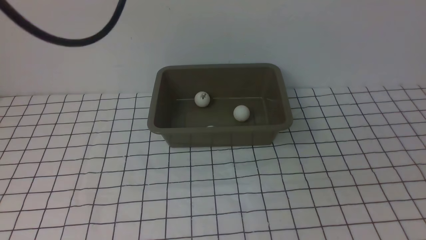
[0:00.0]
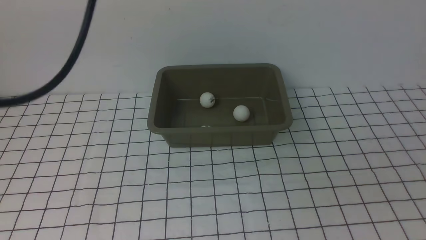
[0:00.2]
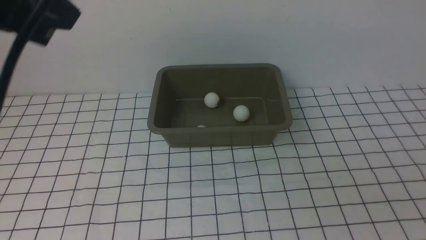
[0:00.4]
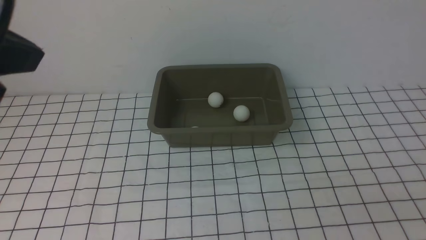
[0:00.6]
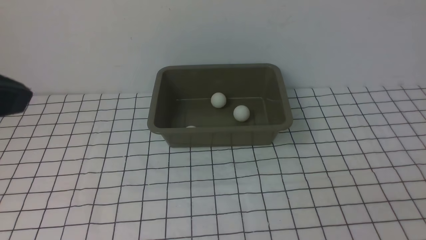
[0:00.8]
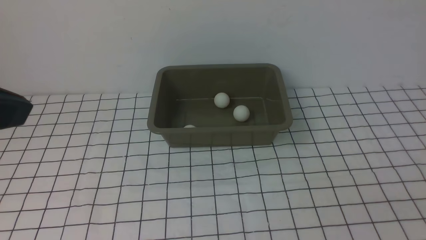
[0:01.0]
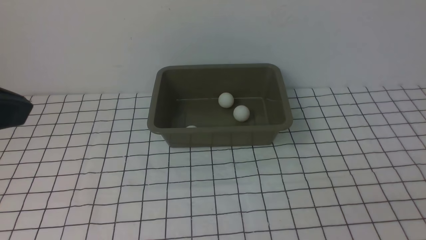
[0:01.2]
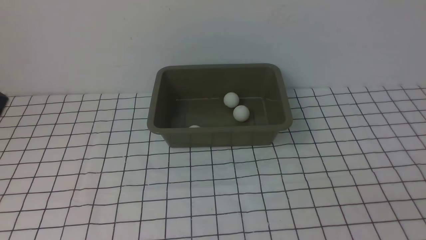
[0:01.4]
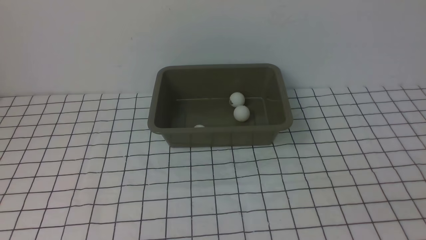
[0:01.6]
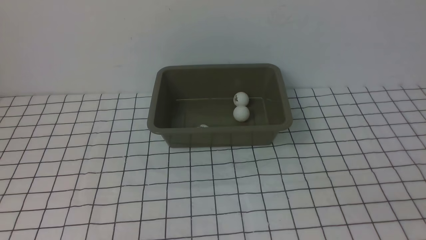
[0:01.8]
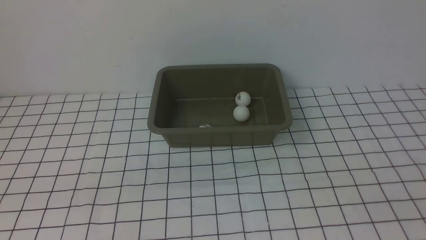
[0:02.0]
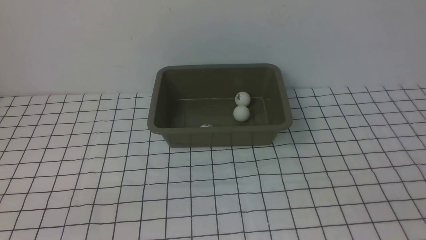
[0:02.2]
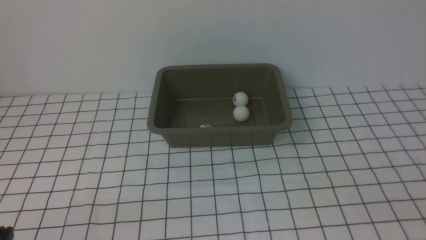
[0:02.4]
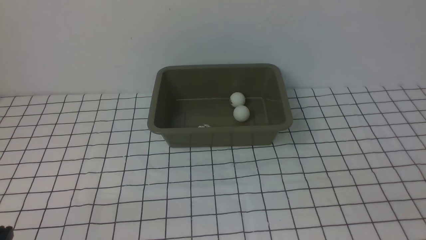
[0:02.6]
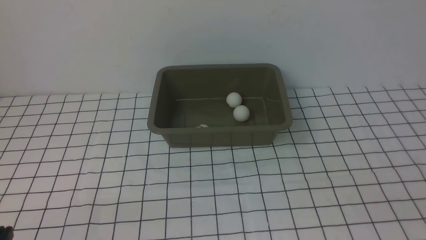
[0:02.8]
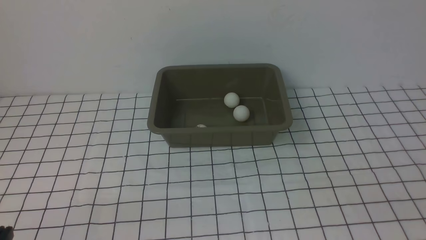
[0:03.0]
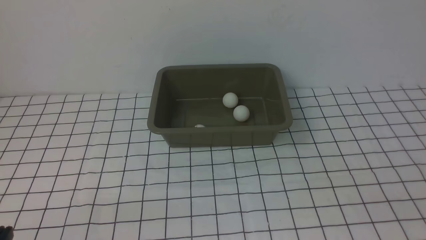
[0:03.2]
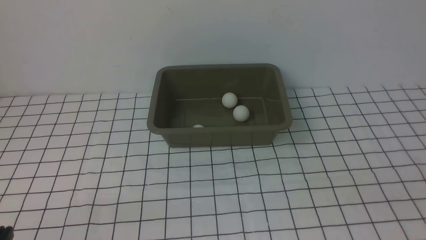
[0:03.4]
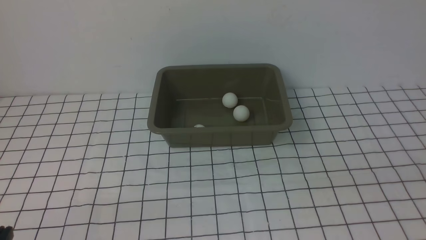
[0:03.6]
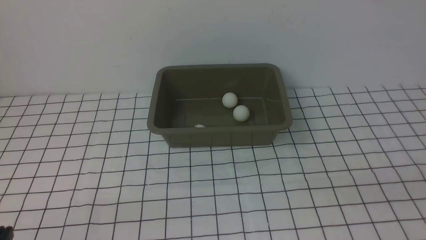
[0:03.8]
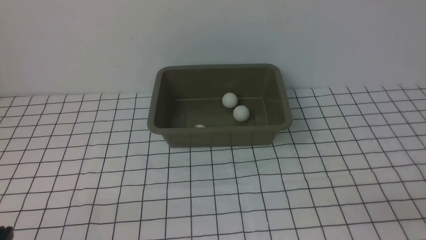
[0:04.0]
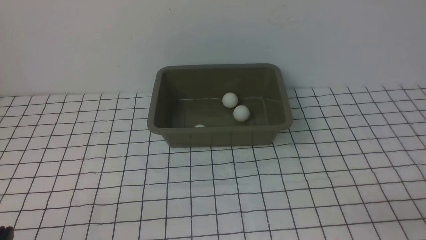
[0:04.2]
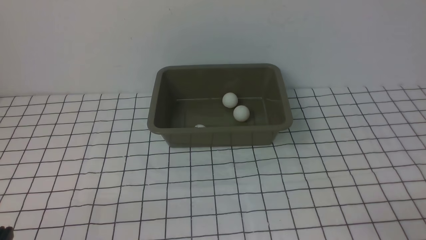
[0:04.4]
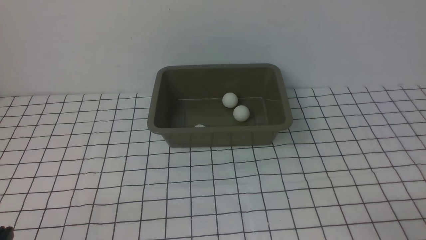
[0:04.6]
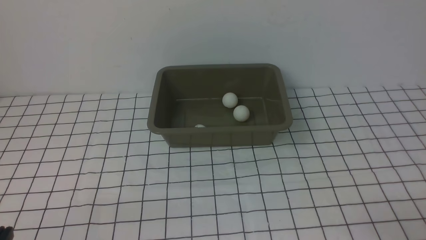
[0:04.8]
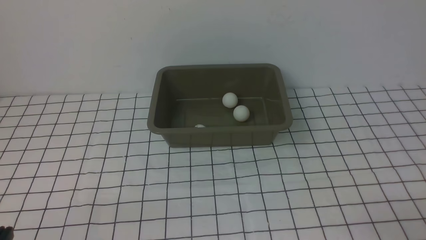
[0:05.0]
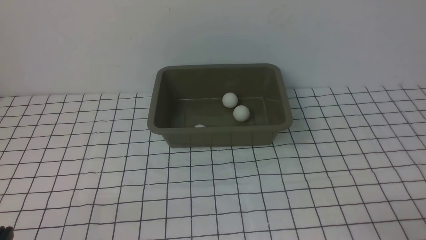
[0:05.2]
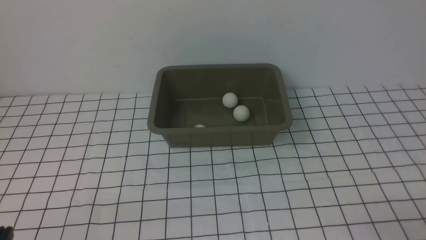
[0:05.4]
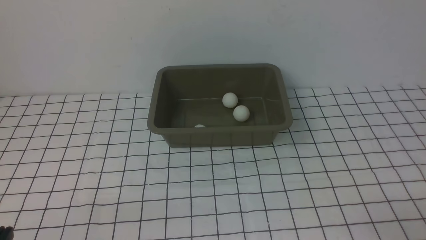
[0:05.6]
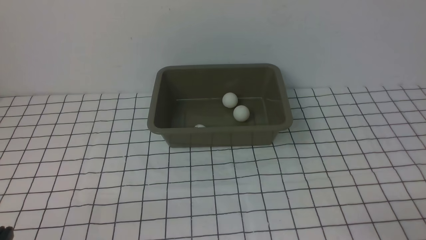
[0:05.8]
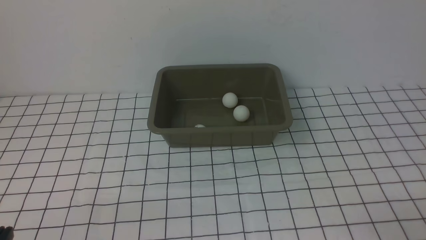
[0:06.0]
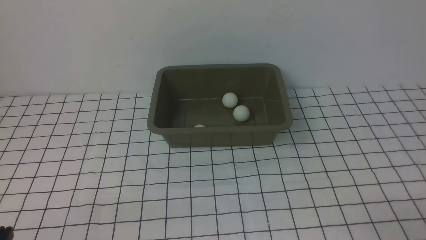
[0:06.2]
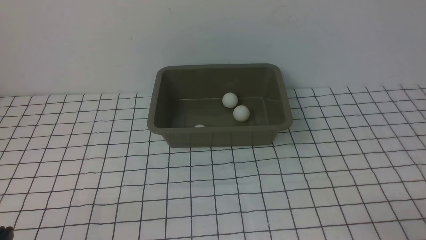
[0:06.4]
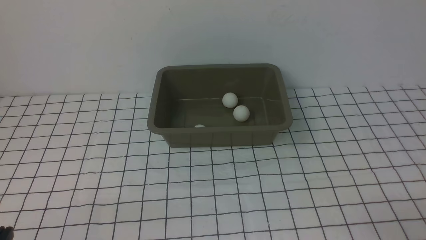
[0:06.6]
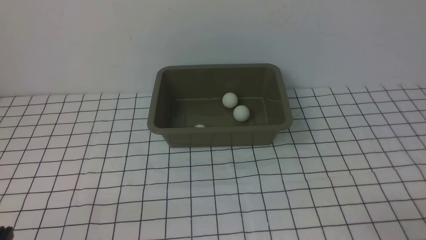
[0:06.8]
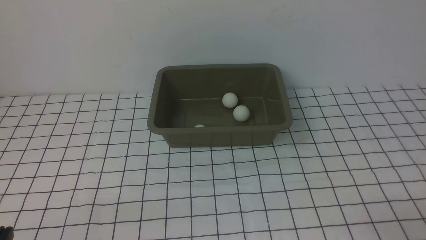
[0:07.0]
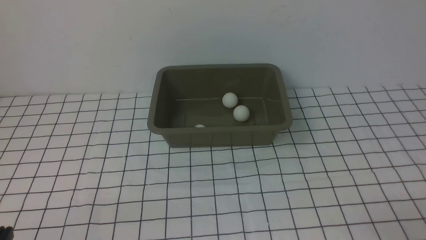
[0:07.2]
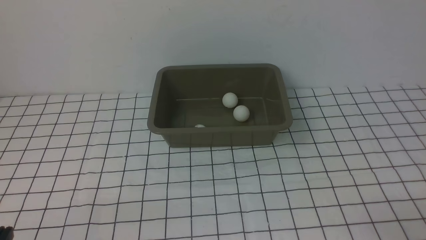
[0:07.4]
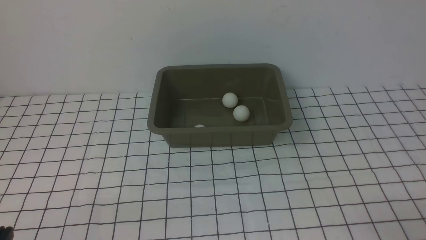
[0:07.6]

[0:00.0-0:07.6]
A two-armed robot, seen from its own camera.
0:00.0 to 0:01.6: The left gripper is displaced backward, downward and to the left by approximately 25 cm.
0:04.6 to 0:07.6: The two grippers keep their place.

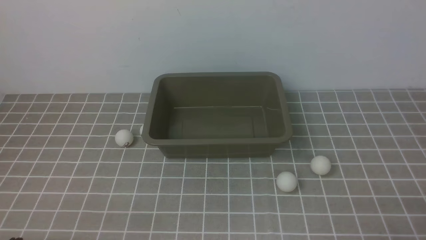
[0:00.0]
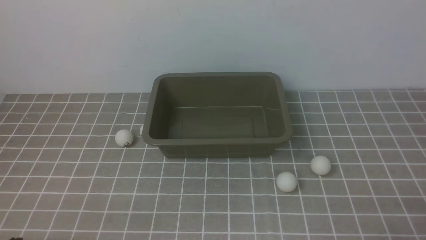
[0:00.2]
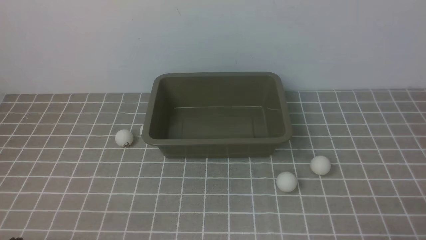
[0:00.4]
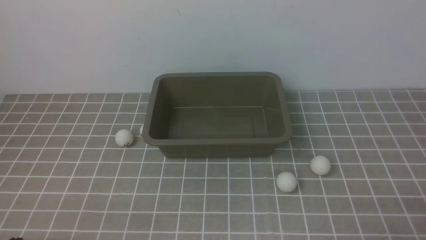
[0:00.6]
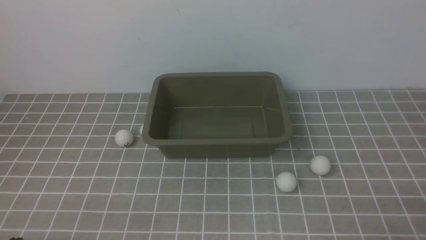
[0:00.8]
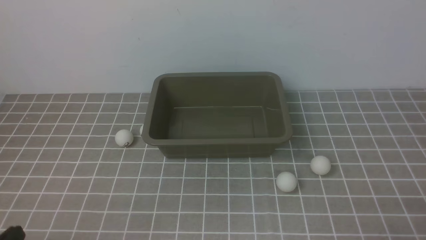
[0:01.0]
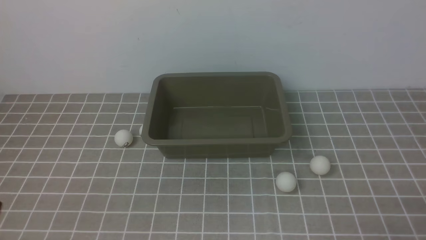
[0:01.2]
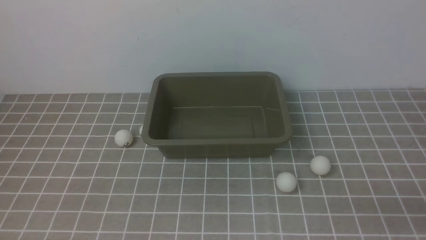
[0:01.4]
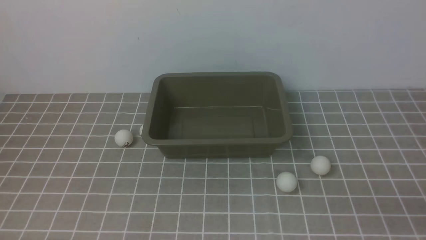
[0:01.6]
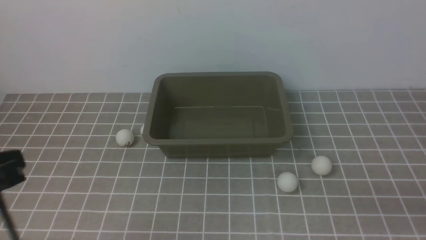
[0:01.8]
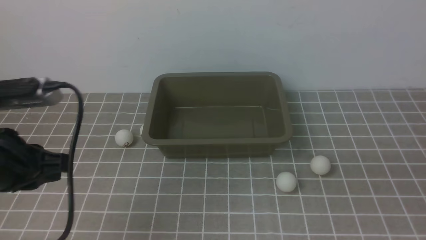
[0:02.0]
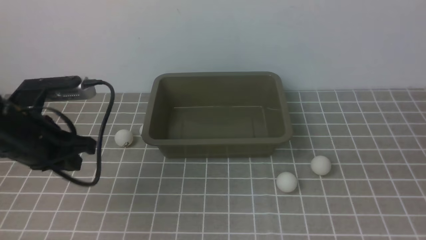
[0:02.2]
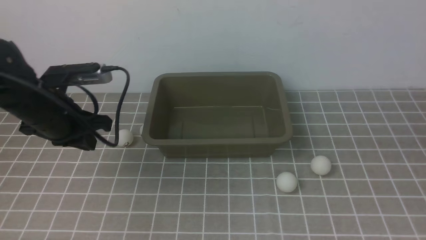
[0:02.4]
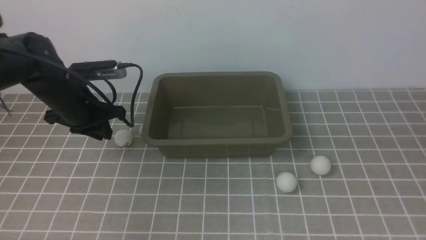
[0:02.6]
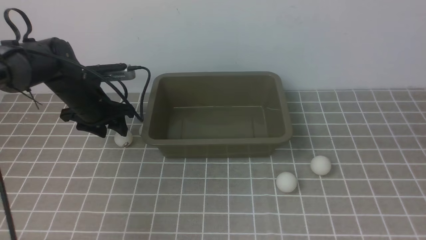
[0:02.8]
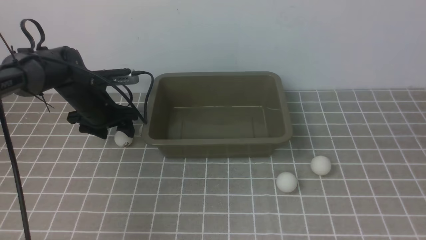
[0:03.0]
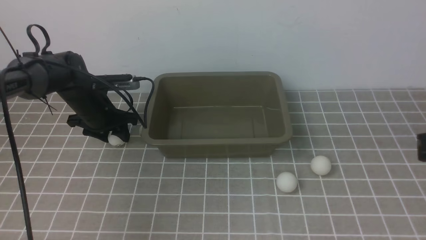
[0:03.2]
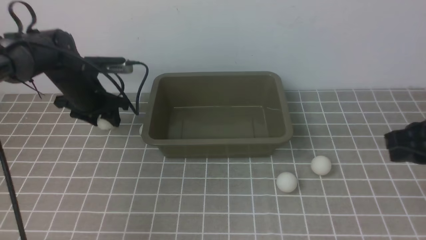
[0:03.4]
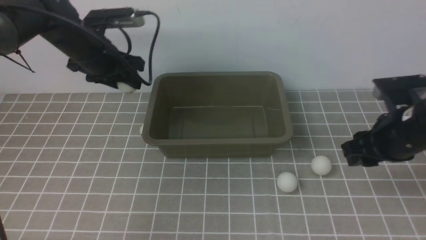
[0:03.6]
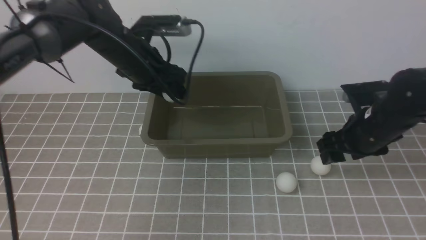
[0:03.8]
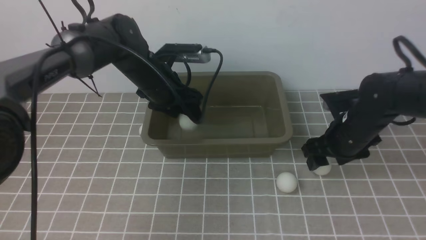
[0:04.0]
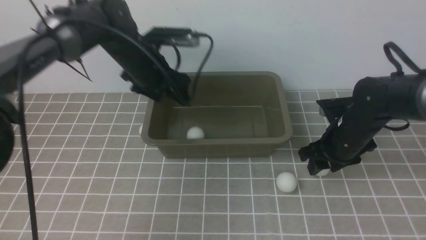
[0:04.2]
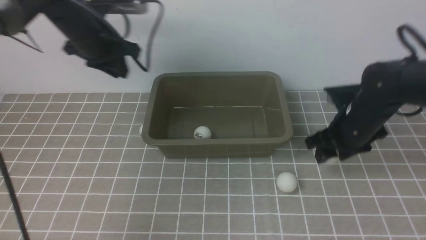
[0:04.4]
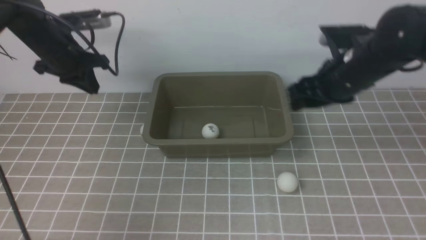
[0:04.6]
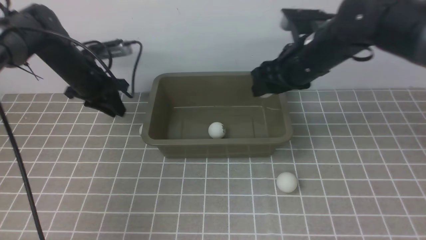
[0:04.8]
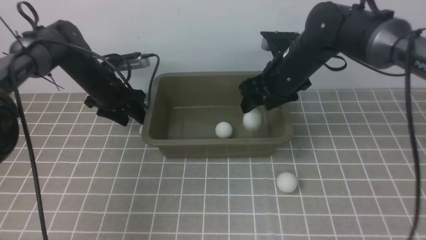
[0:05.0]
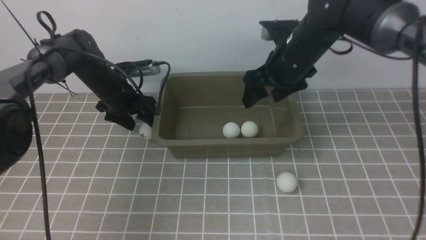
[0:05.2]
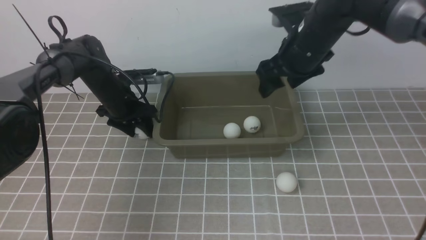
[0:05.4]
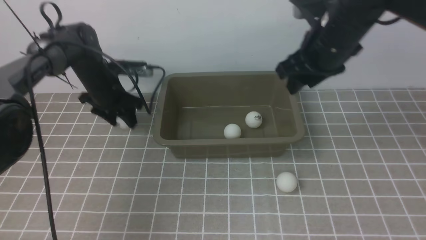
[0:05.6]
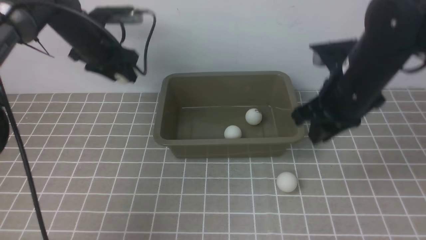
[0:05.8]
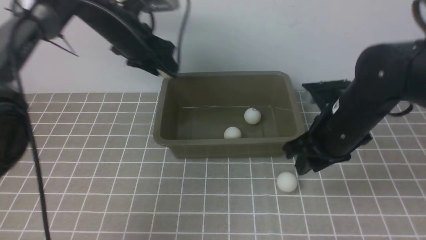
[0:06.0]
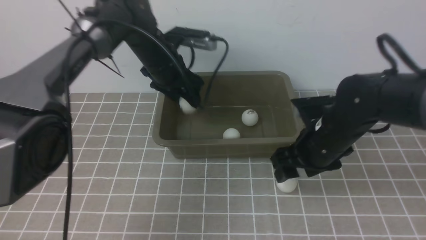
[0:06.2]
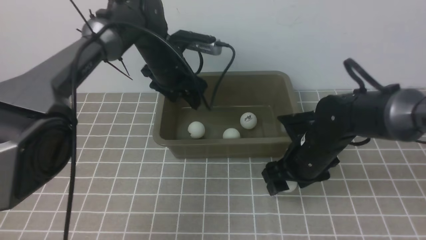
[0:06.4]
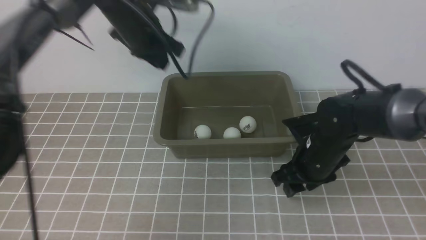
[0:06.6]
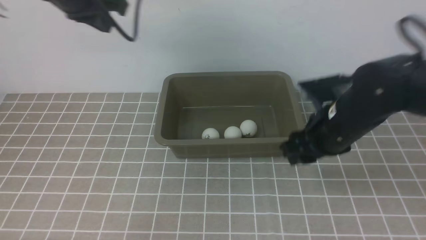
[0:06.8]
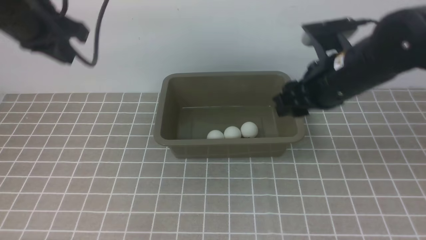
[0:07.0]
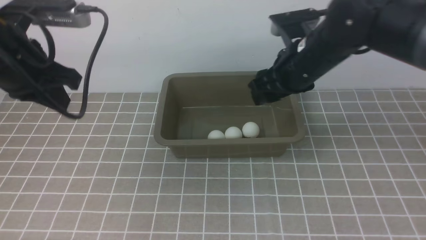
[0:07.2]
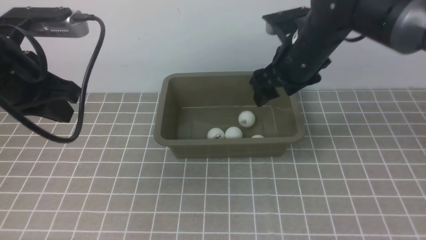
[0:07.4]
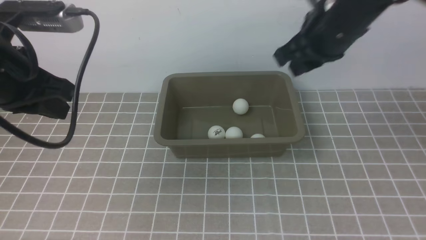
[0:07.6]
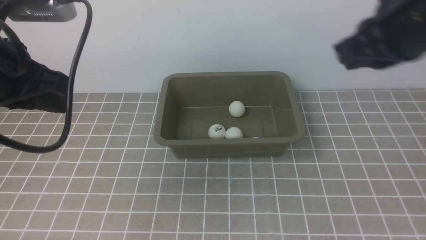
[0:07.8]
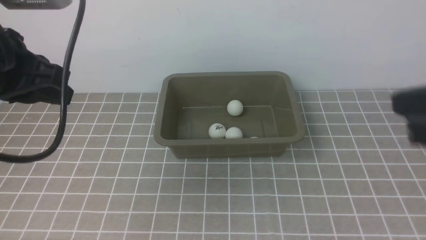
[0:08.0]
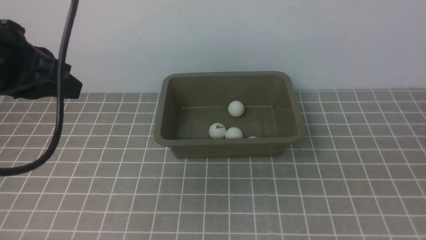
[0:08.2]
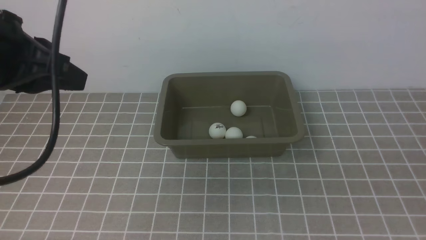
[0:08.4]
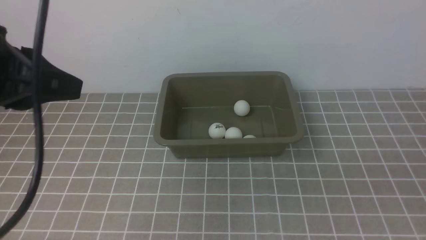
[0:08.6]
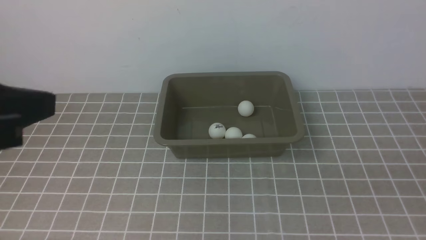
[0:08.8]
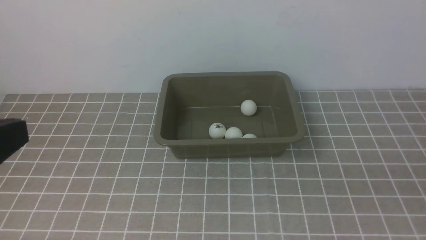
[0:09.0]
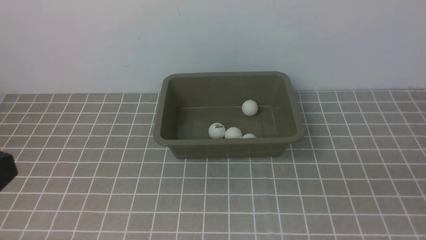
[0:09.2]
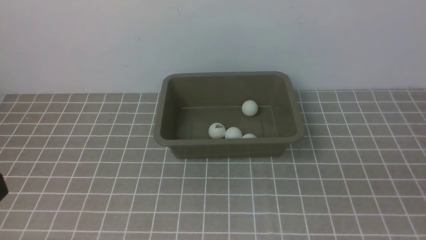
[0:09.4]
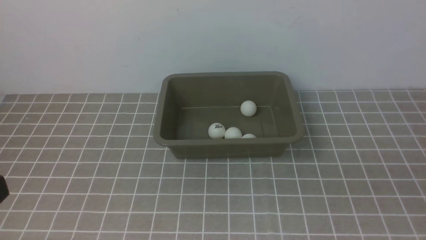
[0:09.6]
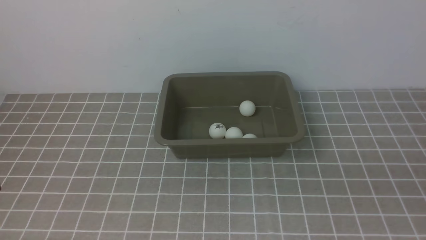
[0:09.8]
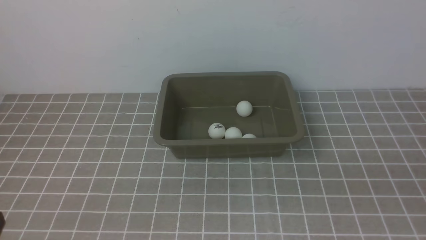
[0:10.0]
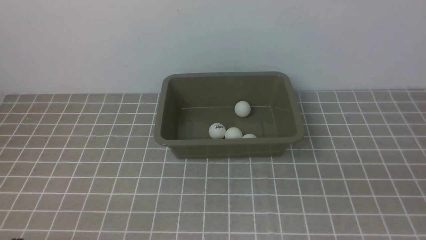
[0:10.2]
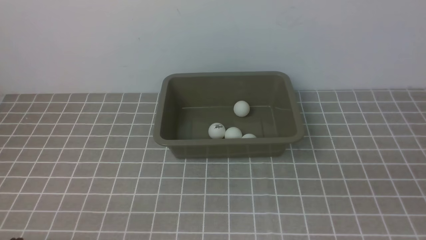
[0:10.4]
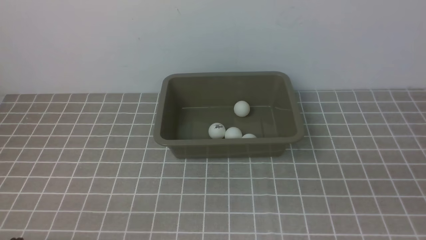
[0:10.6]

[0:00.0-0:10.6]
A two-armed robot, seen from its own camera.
Step, 0:00.0 to 0:03.4: use the left arm to clamp the table tennis ball closest to it.
Step, 0:03.6 to 0:04.0: use the left arm to put the table tennis ball into the box.
Step, 0:04.2 to 0:04.4: use the right arm to clamp the table tennis ball closest to it.
Step, 0:04.6 to 0:05.0: use the right arm to put the table tennis ball into the box.
Step, 0:05.2 to 0:05.6: use the left arm to clamp the table tennis ball closest to it.
Step, 0:05.8 to 0:06.2: use the left arm to put the table tennis ball into the box.
Step, 0:06.6 to 0:06.8: use the right arm to clamp the table tennis ball closest to it.
Step, 0:07.0 to 0:07.4: use the right arm to put the table tennis ball into the box.
0:01.6 to 0:03.0: The left gripper travels forward by approximately 35 cm, and opens; the right gripper moves upward and forward, approximately 15 cm.
0:03.0 to 0:04.6: The right gripper goes roughly 25 cm forward and to the left, and opens its fingers, while the left gripper is displaced upward by some 10 cm, goes to the right and returns, roughly 10 cm each way, and closes its fingers.
0:04.6 to 0:06.0: The left gripper is displaced to the right by some 10 cm, moves approximately 10 cm downward and comes back, and opens its fingers; the right gripper moves backward, approximately 5 cm.
0:06.0 to 0:07.6: The left gripper heads backward and upward, covering roughly 25 cm, and closes up. The right gripper moves upward, some 15 cm.
0:07.6 to 0:09.0: The right gripper goes roughly 35 cm backward and to the right, and closes. Meanwhile the left gripper moves backward, approximately 20 cm.
0:09.0 to 0:10.6: The left gripper shifts about 20 cm downward.
